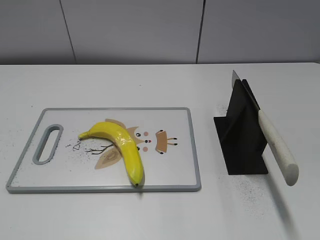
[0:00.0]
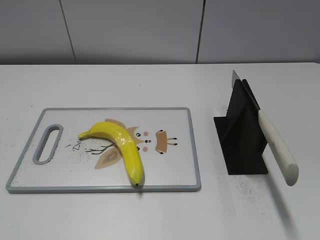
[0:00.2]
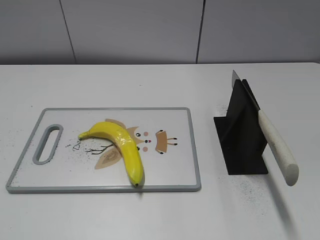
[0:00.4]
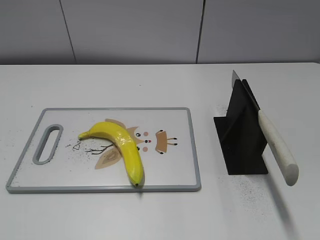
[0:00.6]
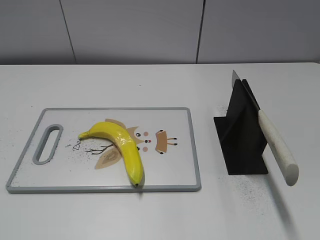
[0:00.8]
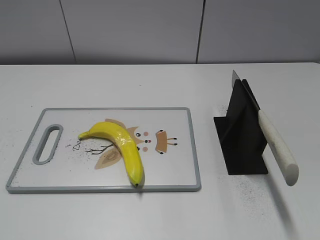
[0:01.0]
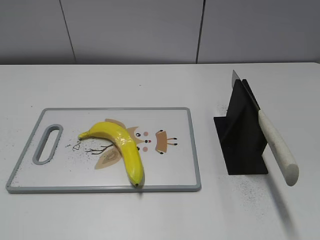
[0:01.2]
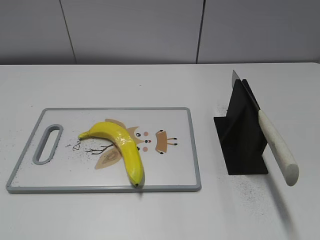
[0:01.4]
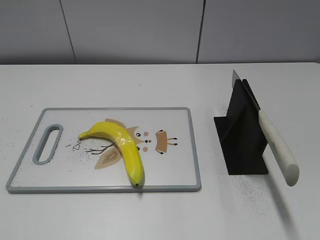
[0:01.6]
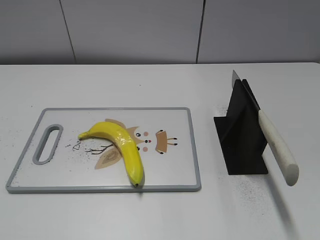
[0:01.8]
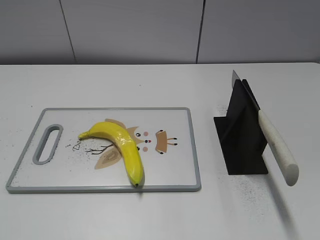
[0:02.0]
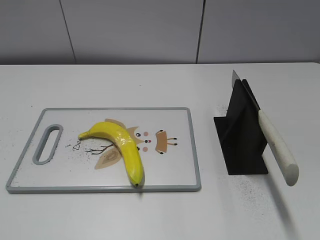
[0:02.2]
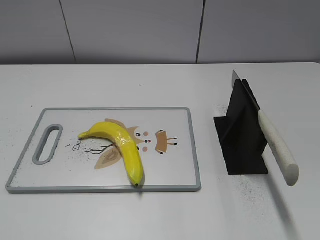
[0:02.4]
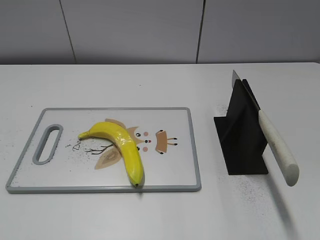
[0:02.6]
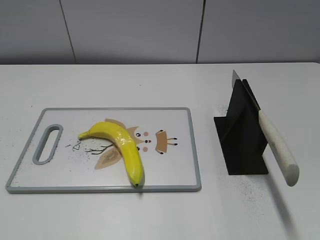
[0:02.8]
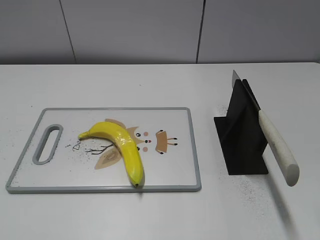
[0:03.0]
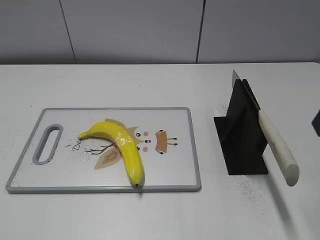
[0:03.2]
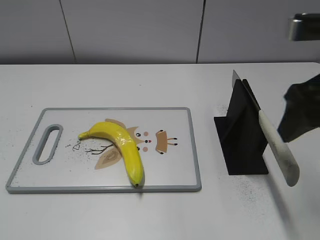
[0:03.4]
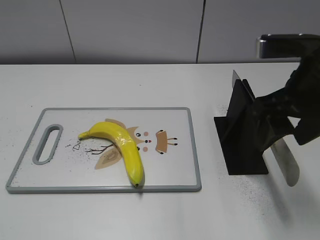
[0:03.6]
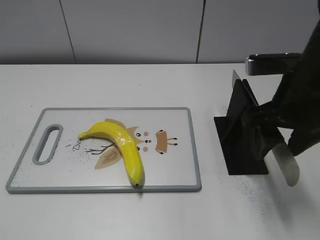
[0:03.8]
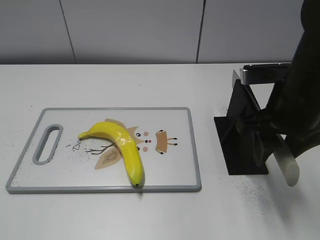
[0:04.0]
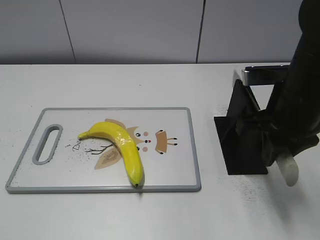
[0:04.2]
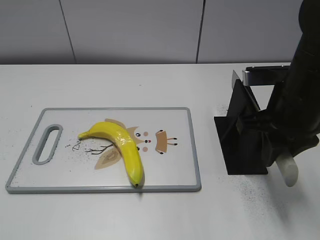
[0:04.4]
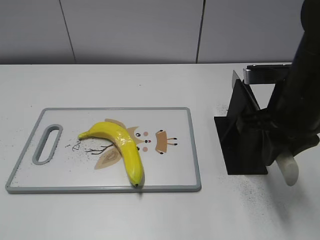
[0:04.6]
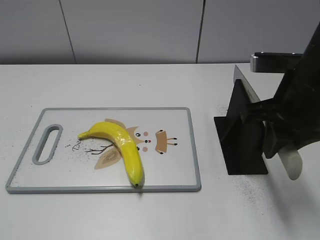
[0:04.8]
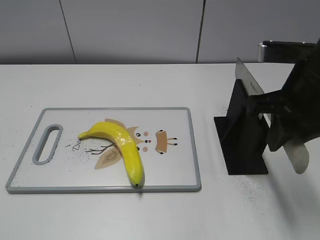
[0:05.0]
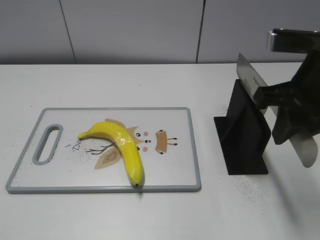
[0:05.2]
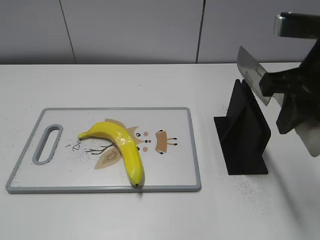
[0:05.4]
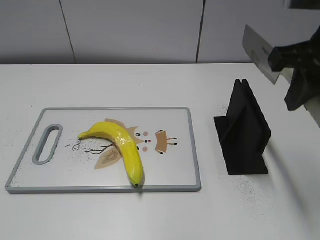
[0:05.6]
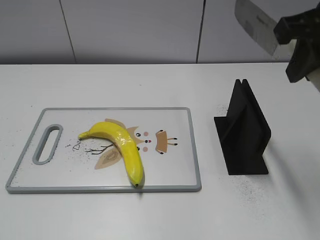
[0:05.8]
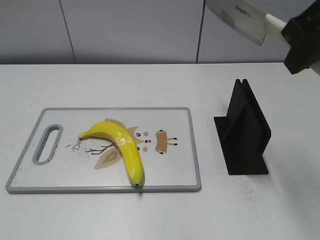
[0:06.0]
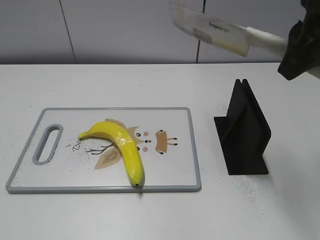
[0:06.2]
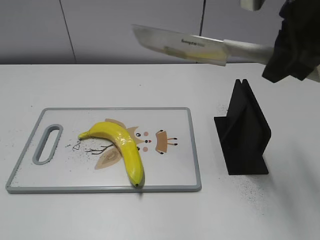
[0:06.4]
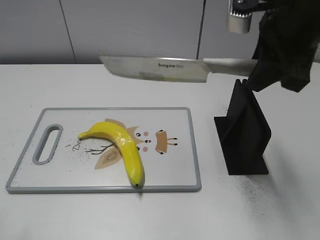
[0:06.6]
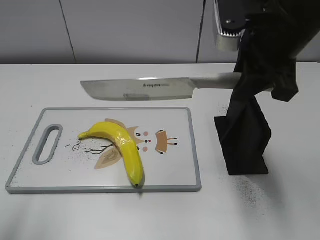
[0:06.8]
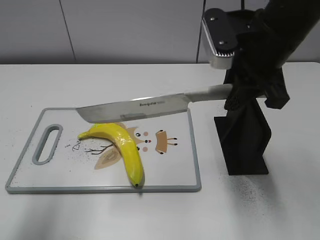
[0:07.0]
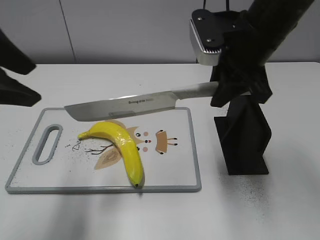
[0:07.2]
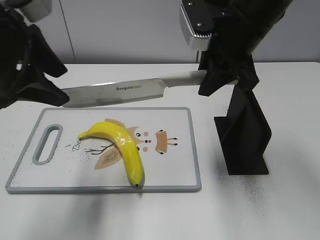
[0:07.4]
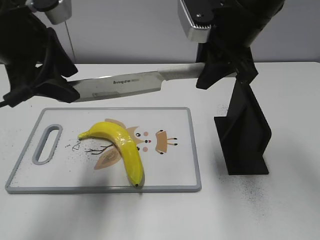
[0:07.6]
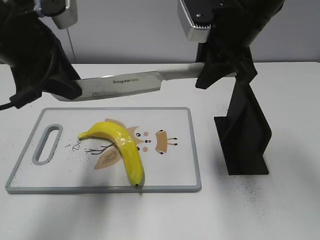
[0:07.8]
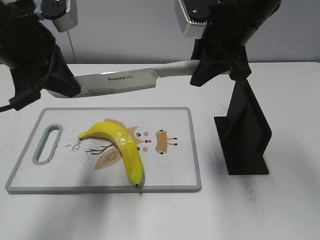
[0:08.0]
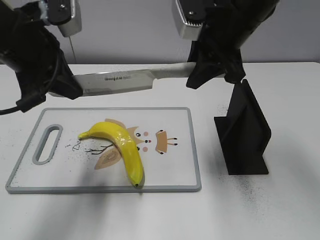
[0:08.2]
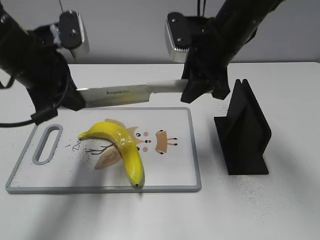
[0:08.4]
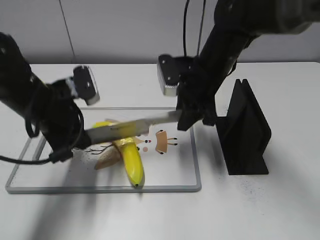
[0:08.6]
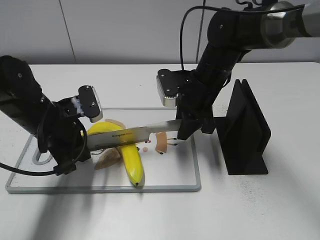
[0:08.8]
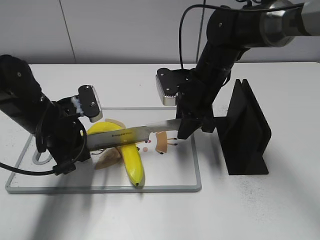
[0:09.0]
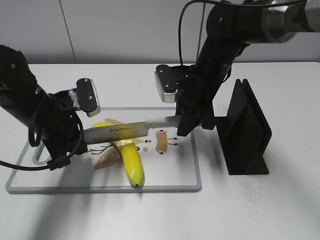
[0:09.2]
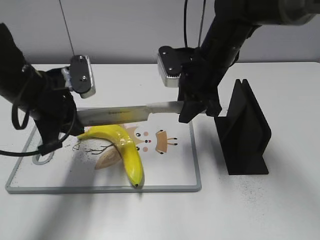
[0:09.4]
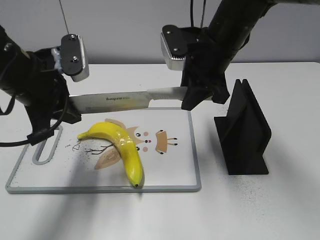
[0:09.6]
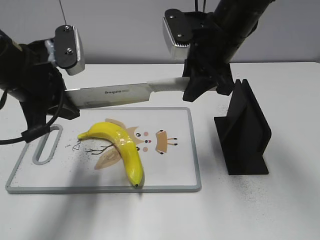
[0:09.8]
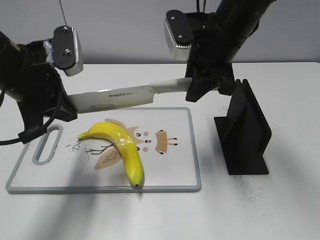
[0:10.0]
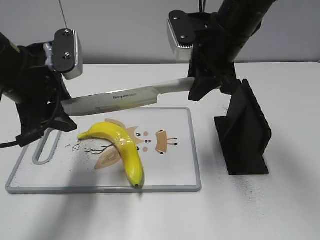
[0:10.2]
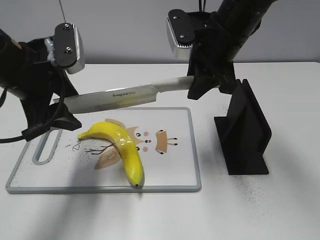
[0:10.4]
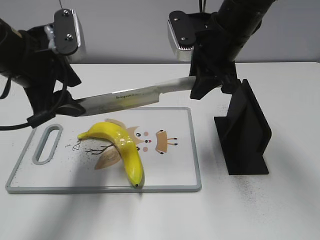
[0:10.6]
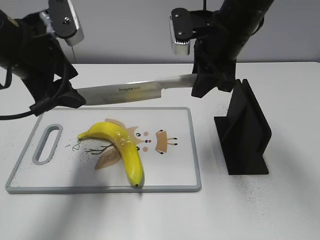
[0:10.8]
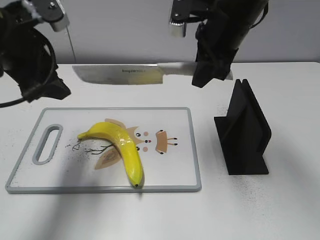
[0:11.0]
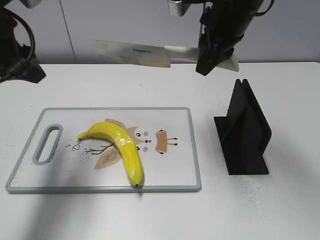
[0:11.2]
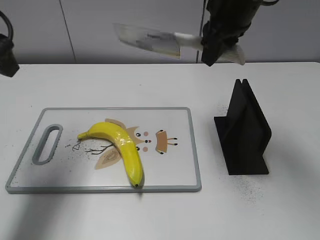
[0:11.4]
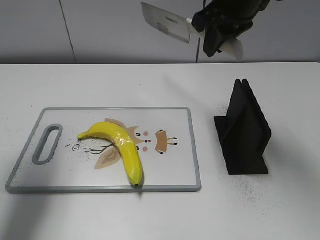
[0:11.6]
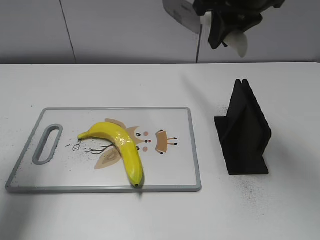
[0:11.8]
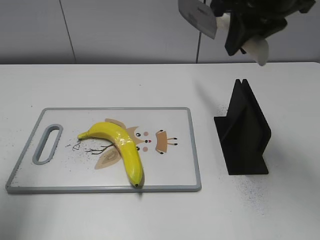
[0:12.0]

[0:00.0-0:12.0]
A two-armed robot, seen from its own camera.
Task of the whole recording: cut plastic banana.
Step, 0:00.0 to 0:05.4: Grab the knife handle with your right hand.
Step, 0:05.8 to 0:10.0: Hold the blade with your left hand.
Step, 0:10.2 to 0:11.0: Cut the banana with your right hand.
0:03.0 to 0:04.4: The right gripper heads downward, to the left and forward, covering some 15 cm, and closes.
0:04.4 to 0:06.0: The right gripper shifts some 15 cm upward.
0:06.0 to 0:07.6: The right gripper shifts approximately 15 cm forward, to the left and downward. Meanwhile the left gripper heads forward and to the right, covering roughly 30 cm.
0:07.6 to 0:09.0: The two grippers go roughly 15 cm downward. The left gripper closes its fingers.
0:09.0 to 0:10.4: The two grippers go about 10 cm upward. The left gripper opens.
0:10.4 to 0:12.0: The left gripper shifts roughly 15 cm to the left, upward and backward. Meanwhile the right gripper moves upward, some 10 cm.

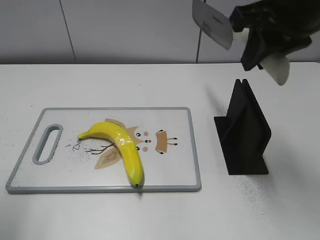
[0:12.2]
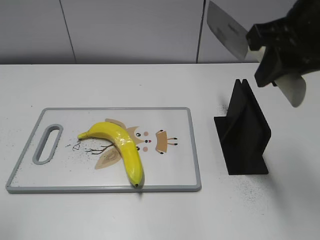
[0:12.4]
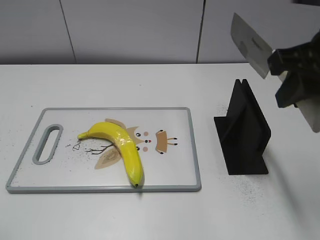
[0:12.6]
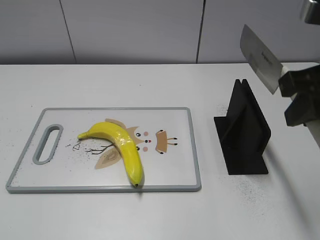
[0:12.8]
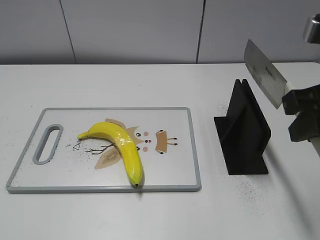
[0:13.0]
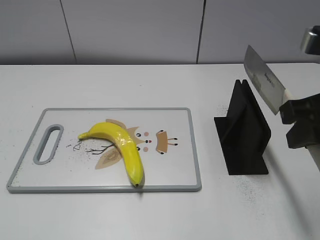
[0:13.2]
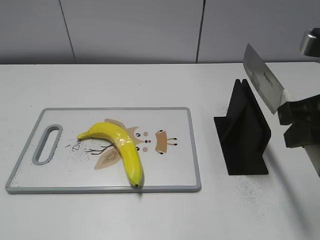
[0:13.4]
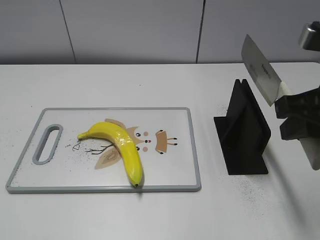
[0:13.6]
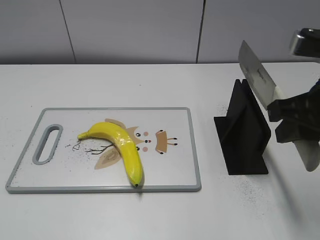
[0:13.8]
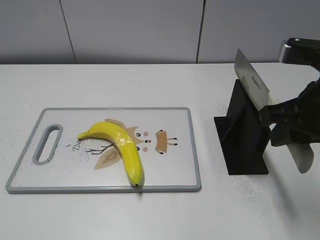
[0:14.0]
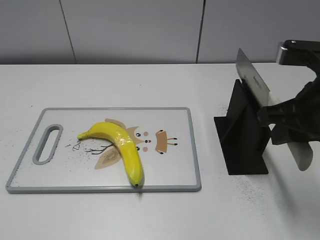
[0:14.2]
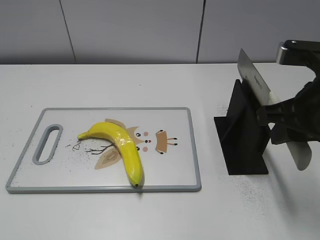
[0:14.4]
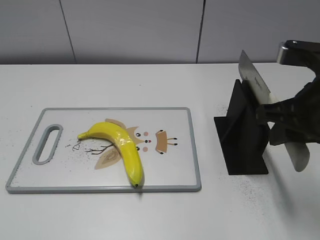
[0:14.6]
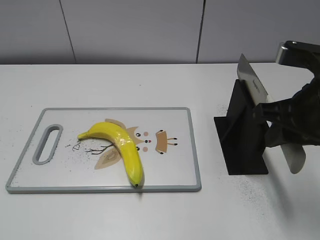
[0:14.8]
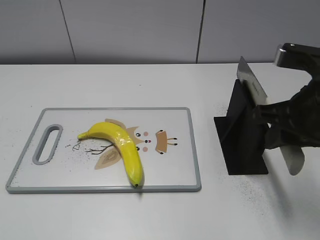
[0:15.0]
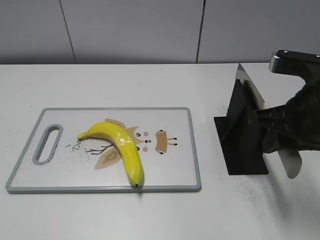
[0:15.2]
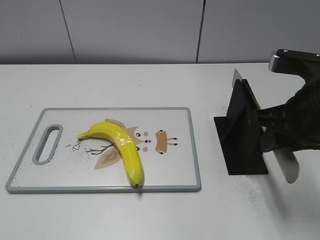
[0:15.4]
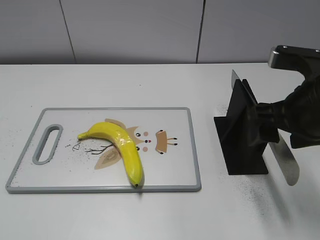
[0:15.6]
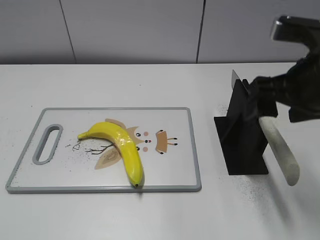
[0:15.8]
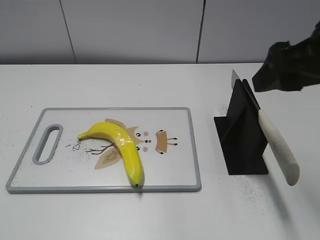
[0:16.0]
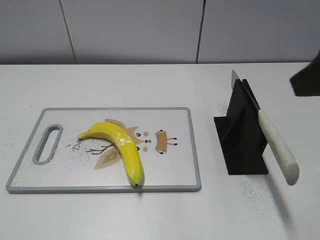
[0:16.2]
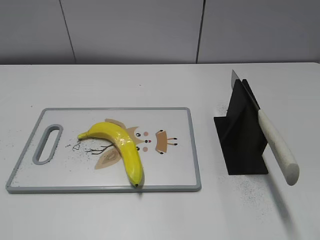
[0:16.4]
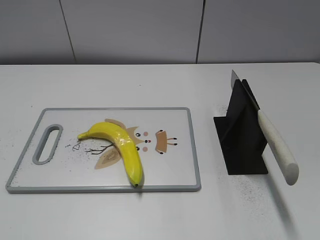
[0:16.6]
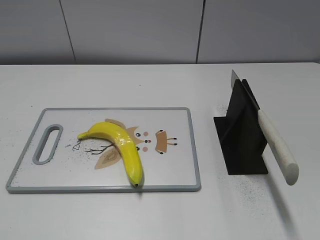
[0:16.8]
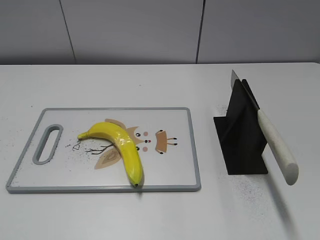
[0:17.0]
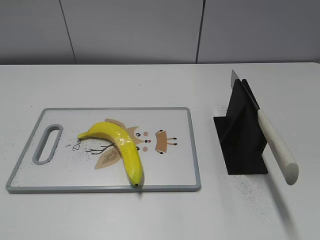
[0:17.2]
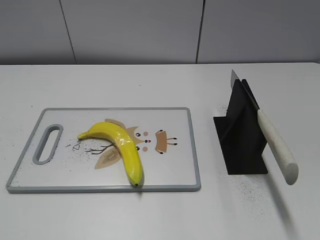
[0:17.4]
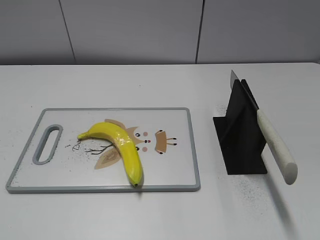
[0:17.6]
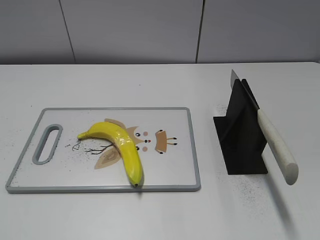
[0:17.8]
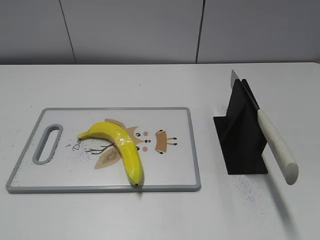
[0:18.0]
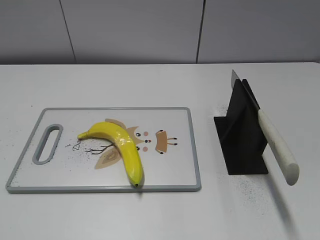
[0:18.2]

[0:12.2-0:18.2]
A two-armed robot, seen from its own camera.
Task of the whole recording: cut plastic banana.
Step, 0:12.6 to 0:18.2: Place the knife on the storage rack with your right hand.
0:12.2 to 0:13.8: The right gripper goes some 10 cm backward and downward. The left gripper is displaced backward by about 15 cm.
0:13.8 to 0:15.2: The grippers stay close to where they were, moving slightly.
0:15.2 to 0:16.6: The right gripper is displaced backward, upward and to the right by roughly 20 cm, and opens up.
